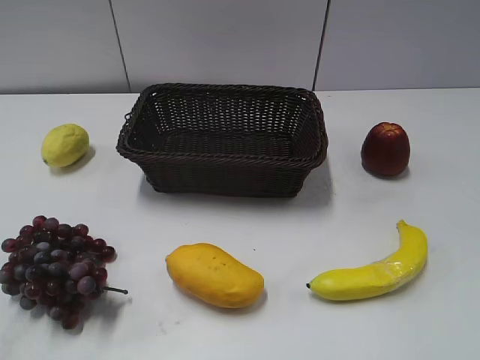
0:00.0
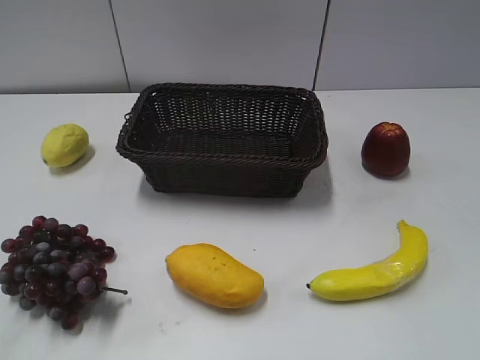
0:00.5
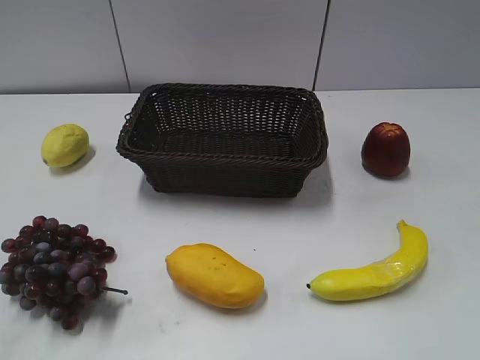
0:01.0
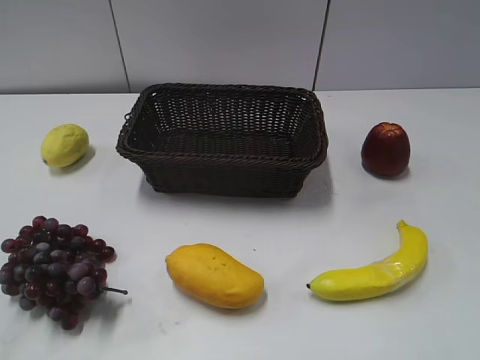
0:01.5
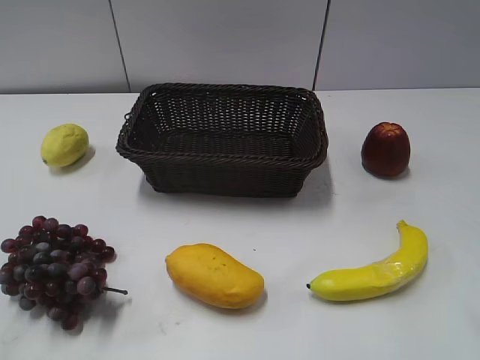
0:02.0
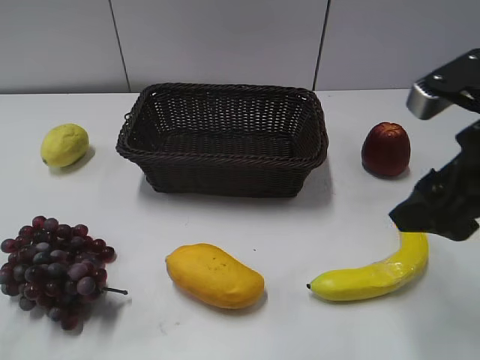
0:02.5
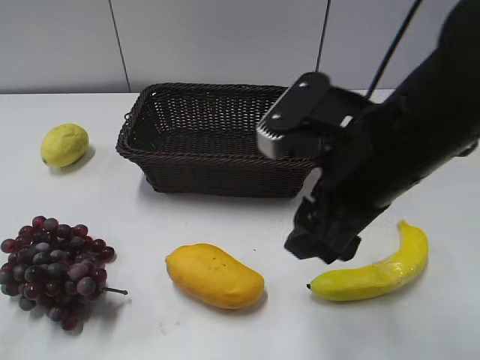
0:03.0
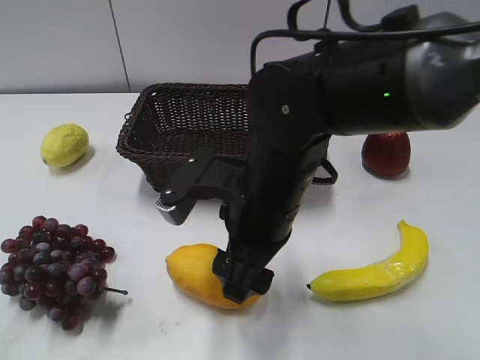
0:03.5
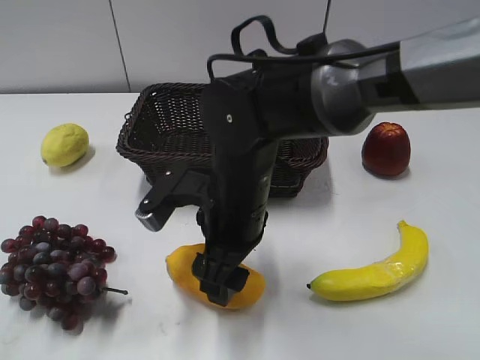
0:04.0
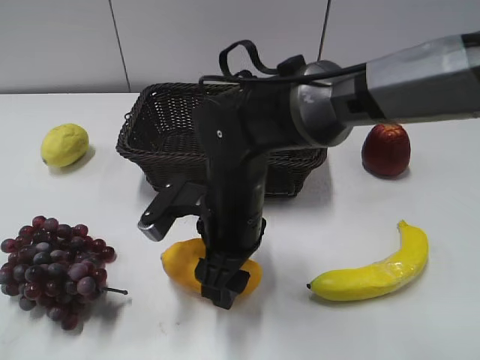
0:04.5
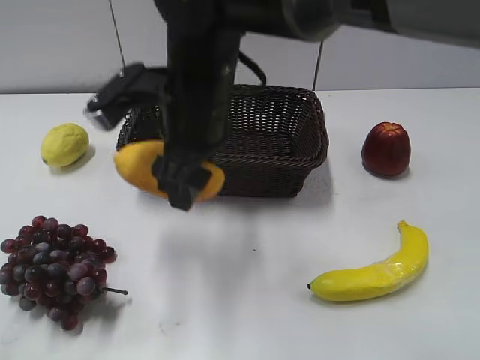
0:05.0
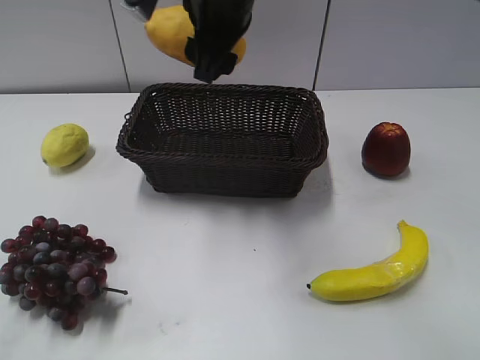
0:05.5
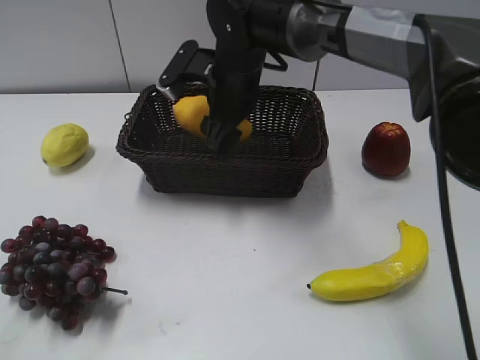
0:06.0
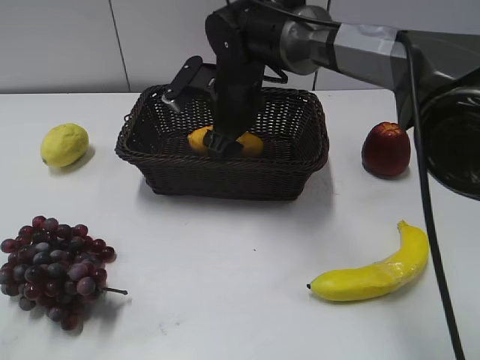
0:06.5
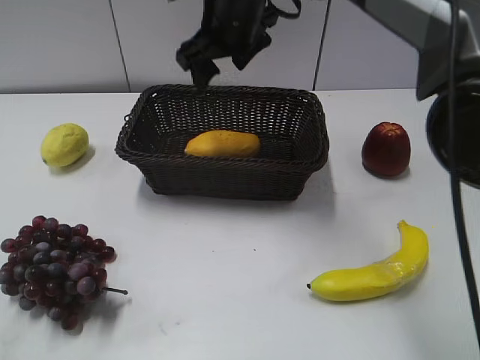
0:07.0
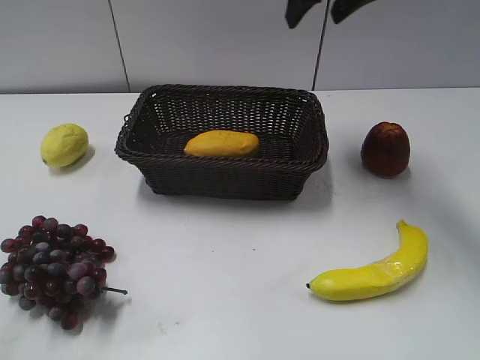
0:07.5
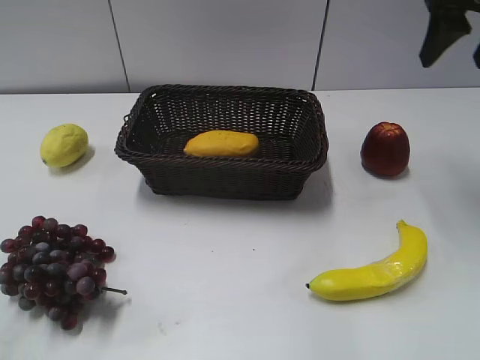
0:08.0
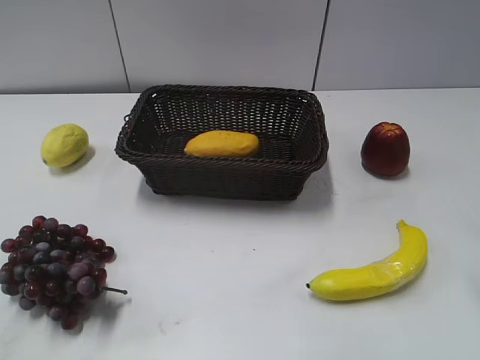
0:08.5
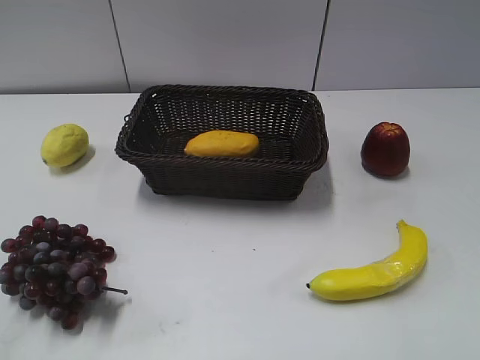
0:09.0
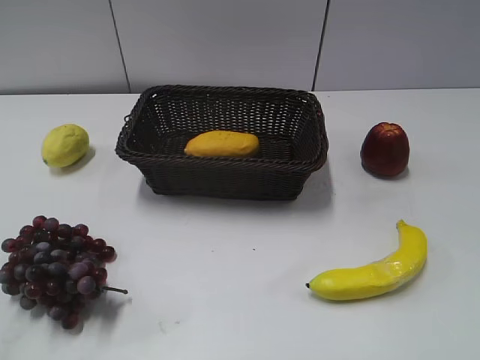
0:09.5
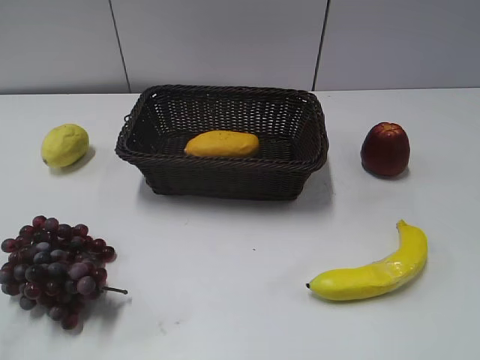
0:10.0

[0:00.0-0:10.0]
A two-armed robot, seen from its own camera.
Step, 0:02.5 to 0:04.0: Grasp the mango with right gripper.
Step, 0:04.5 to 0:06.0: Place the mango in the basket with right gripper.
0:02.0 to 0:04.0: The right gripper travels to the left and downward by about 30 cm.
0:04.0 to 0:06.0: The right gripper heads forward, covering approximately 15 cm, and goes upward and returns, some 15 cm each way.
0:06.0 to 0:08.0: The right gripper goes approximately 30 cm to the right and upward.
0:08.0 to 0:10.0: The right gripper shifts roughly 35 cm backward.
